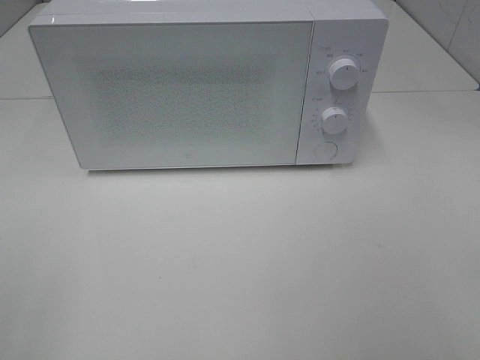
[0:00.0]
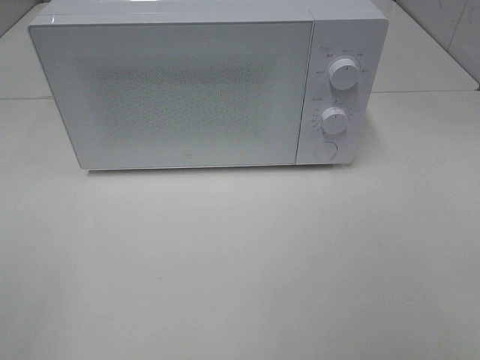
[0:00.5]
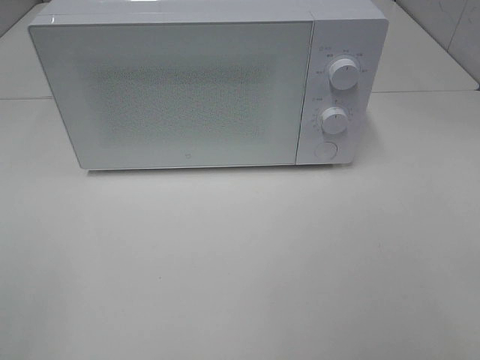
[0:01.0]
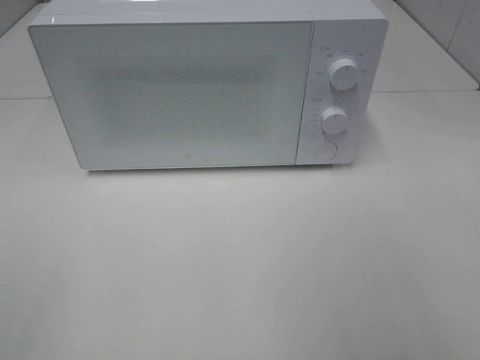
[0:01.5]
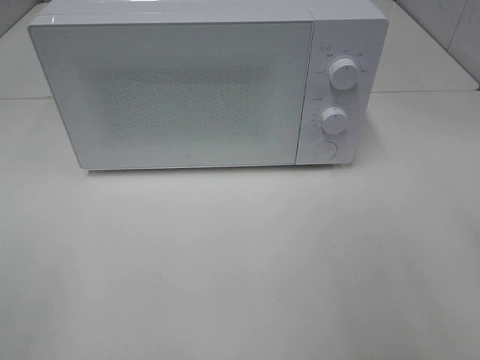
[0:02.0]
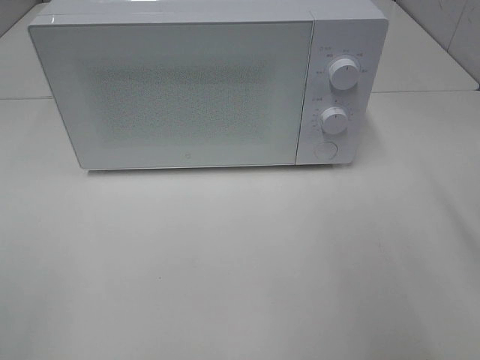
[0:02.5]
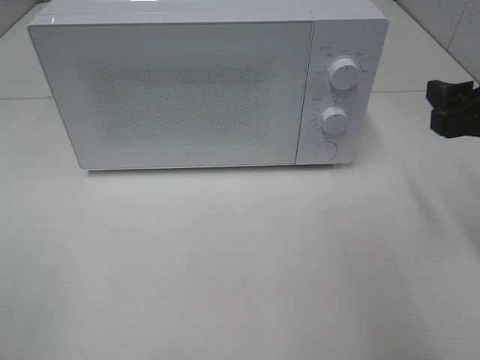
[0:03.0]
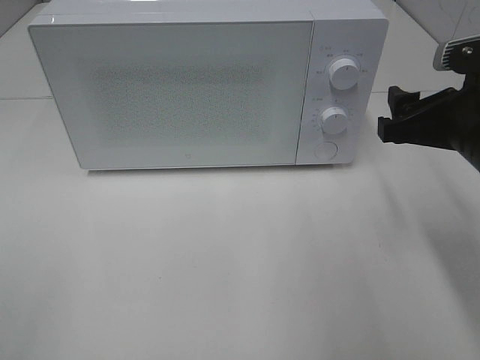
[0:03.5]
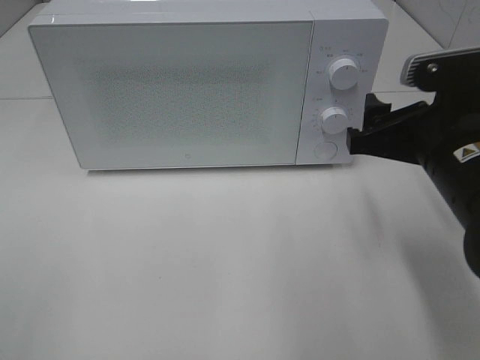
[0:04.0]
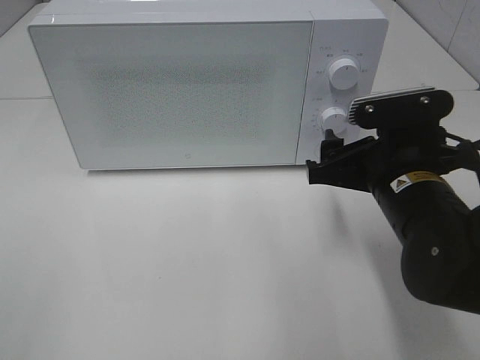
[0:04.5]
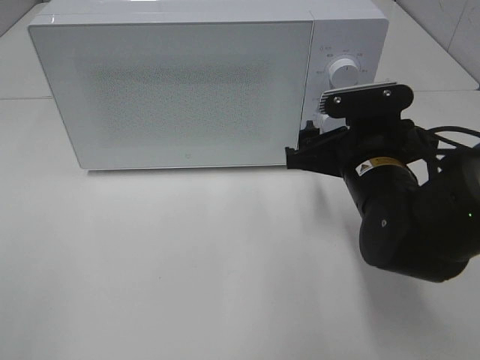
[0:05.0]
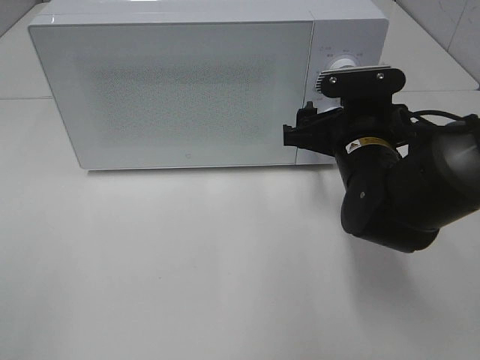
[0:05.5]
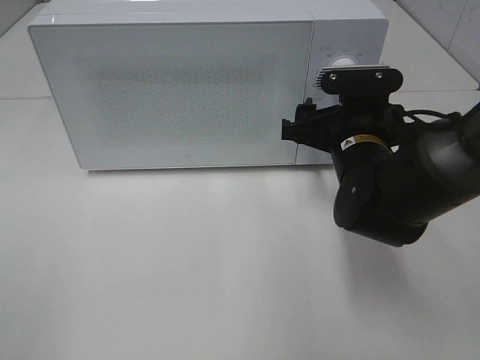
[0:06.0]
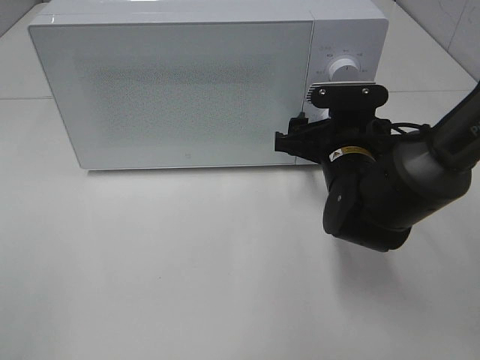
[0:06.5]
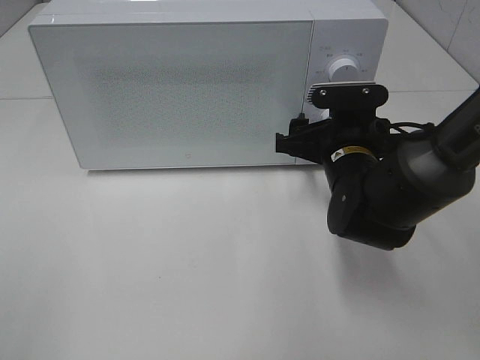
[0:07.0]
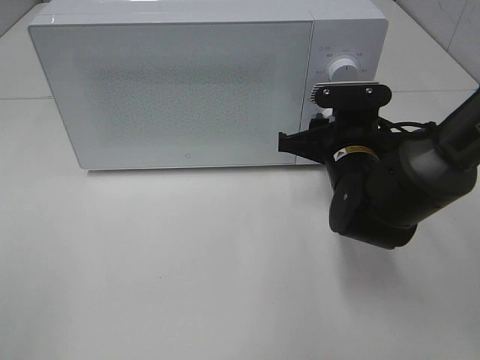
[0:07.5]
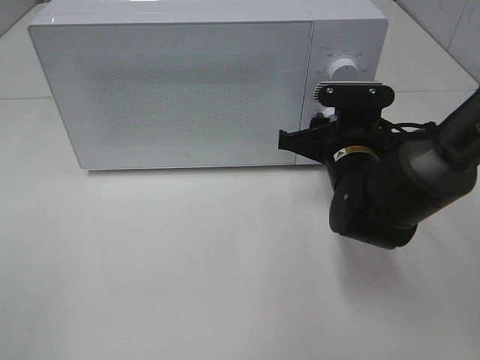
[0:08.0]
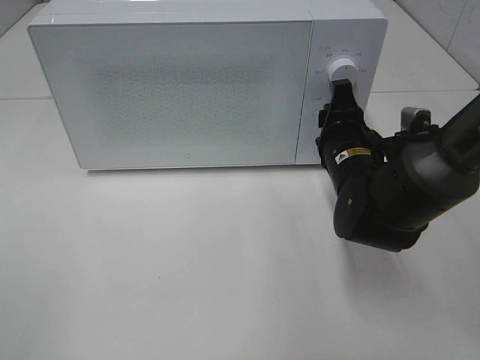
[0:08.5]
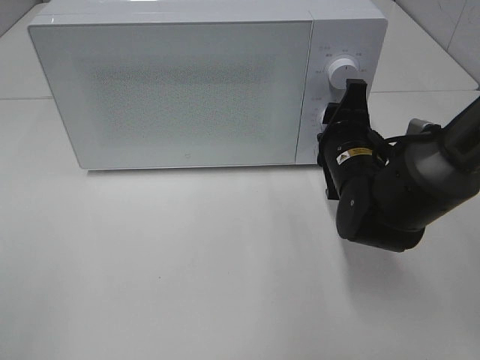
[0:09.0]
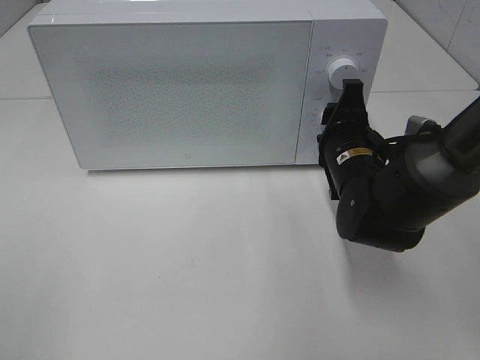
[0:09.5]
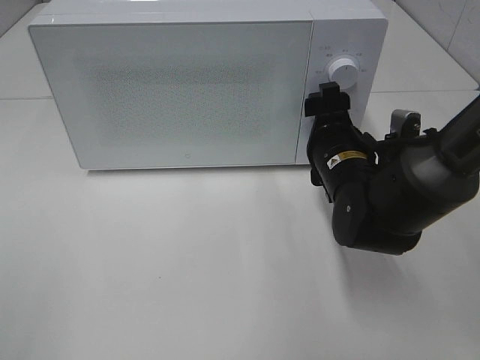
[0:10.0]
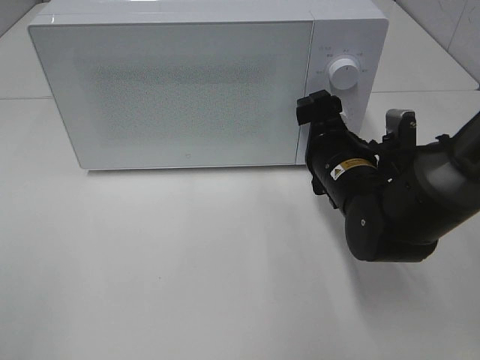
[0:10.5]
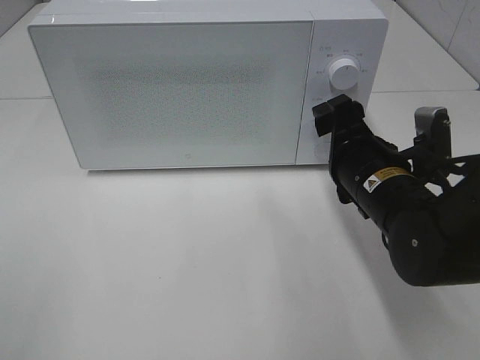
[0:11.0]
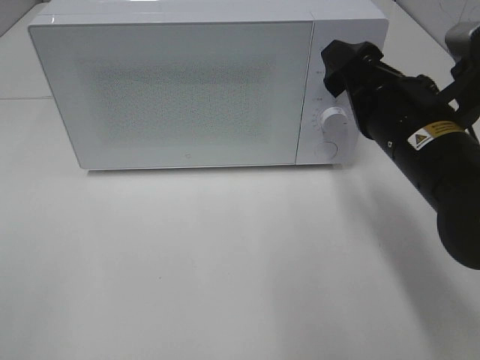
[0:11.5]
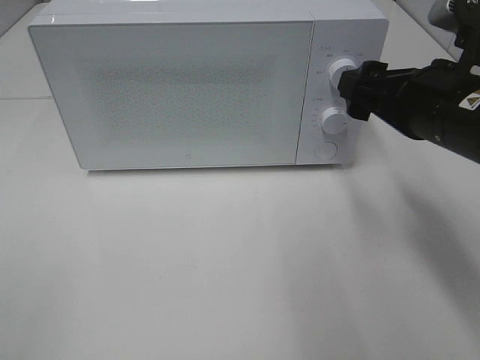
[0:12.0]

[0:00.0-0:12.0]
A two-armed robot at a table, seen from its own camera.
Task of the whole recording: Heat the burger.
Step, 0:00.0 to 0:09.5: Right hand: twist timer button.
0:02.0 to 0:04.0: The right gripper shifts roughly 15 cm forward, to the left and downward.
0:04.0 to 0:06.0: The right gripper shifts approximately 10 cm forward, downward and to the left.
0:06.0 to 0:08.0: The right gripper closes up.
0:08.0 to 0:10.0: The right gripper opens.
0:10.0 to 0:12.0: The right gripper moves upward, to the right and backward, about 15 cm.

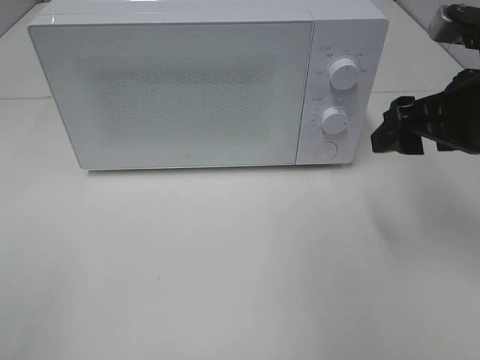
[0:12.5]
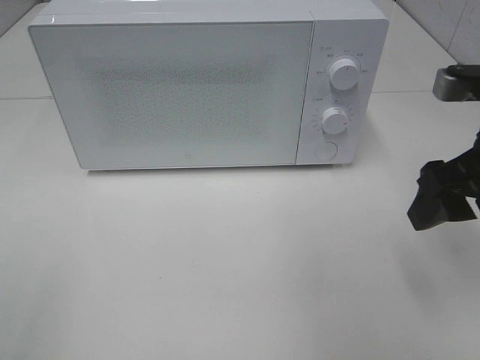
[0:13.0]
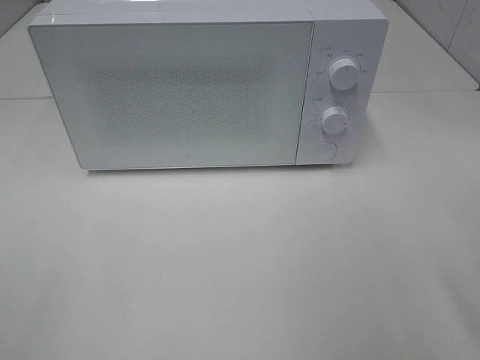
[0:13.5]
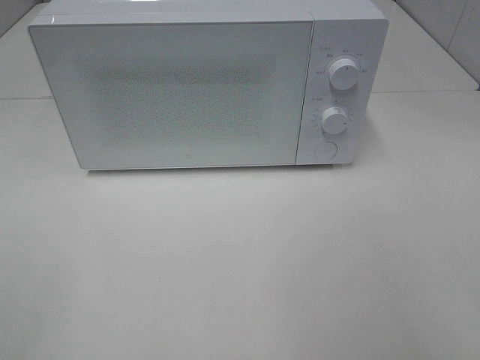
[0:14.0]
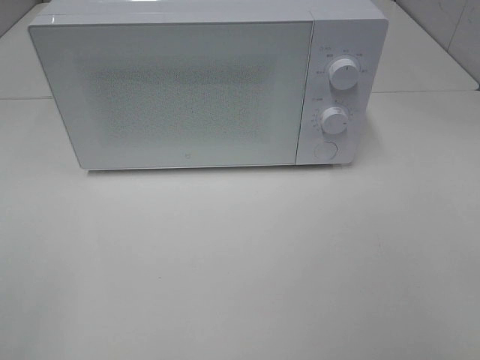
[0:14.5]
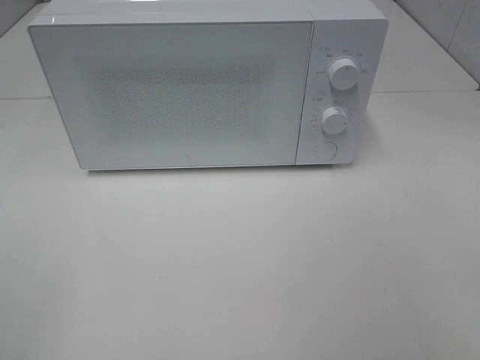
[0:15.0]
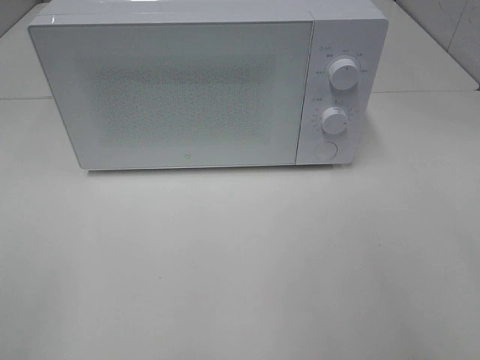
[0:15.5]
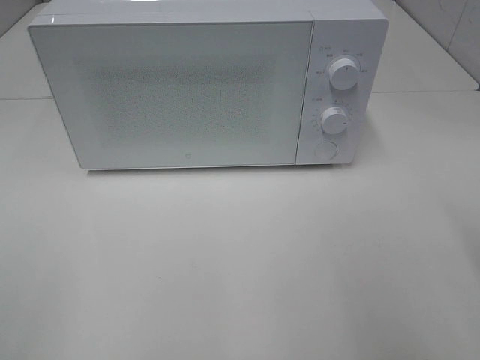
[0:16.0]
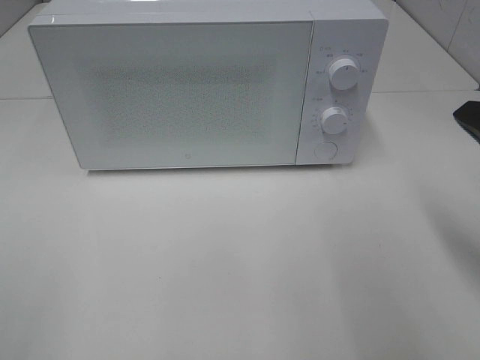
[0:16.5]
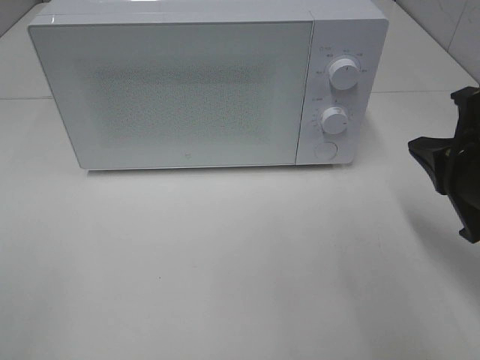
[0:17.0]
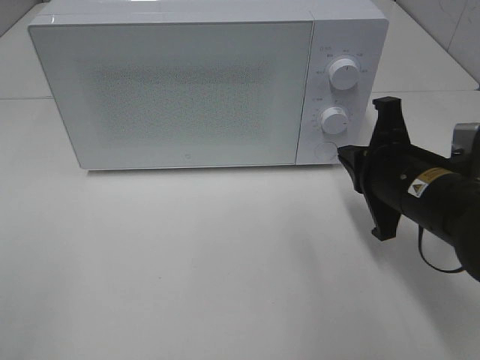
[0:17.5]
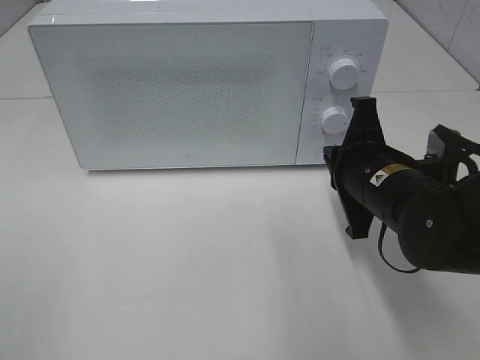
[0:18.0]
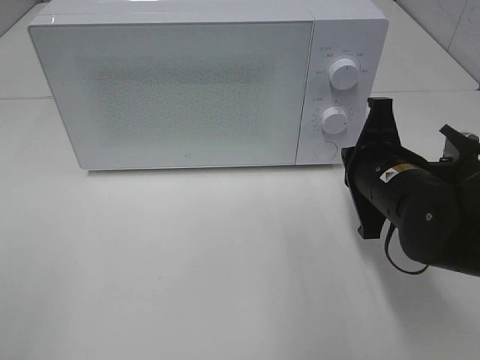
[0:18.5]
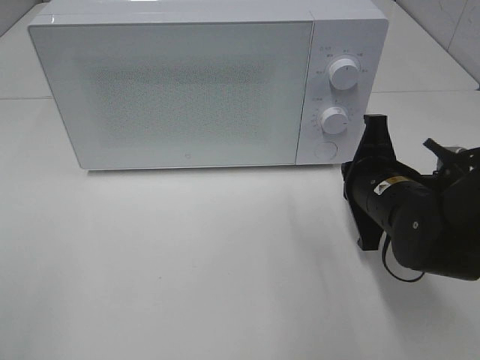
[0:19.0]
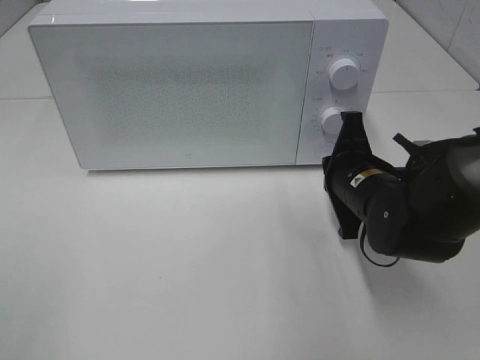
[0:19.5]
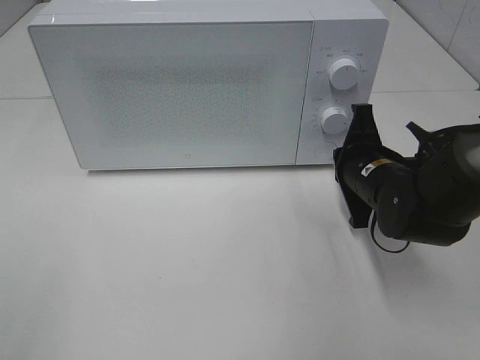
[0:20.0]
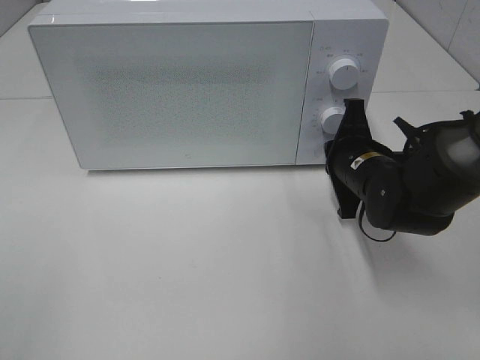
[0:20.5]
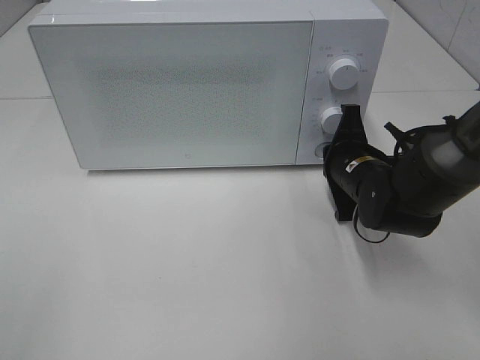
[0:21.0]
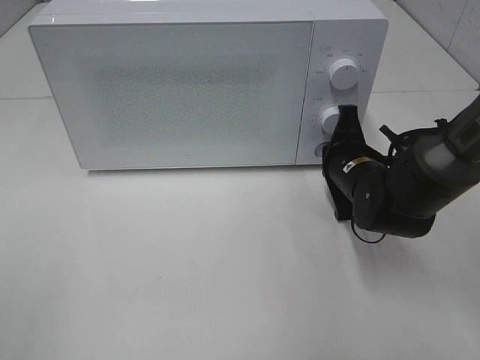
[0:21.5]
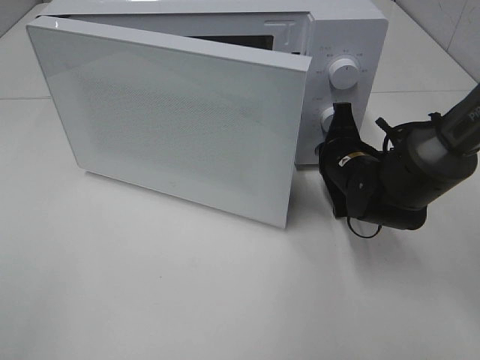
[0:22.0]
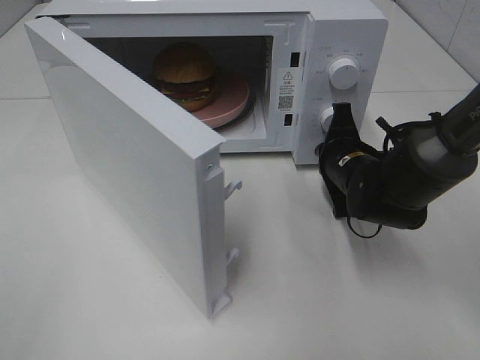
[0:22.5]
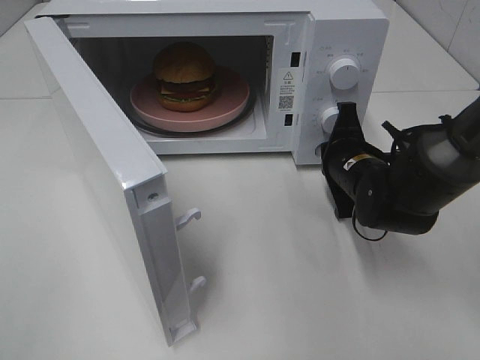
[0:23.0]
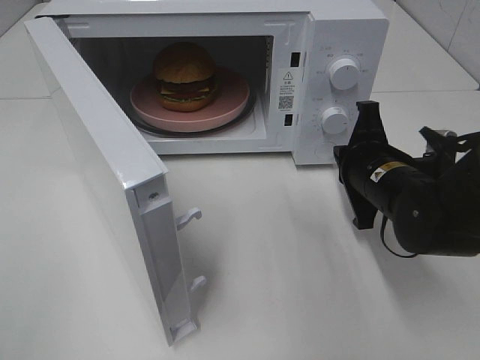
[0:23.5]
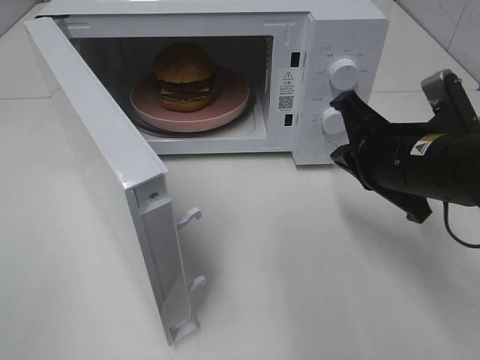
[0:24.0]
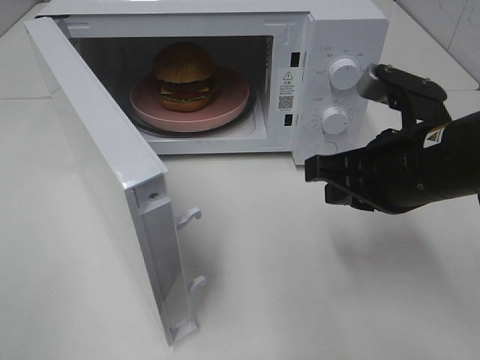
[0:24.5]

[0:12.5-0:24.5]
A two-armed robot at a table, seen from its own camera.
Task of the whole recording: Heat the burger.
Step, 0:12.5 to 0:23.0: Right hand: press the switch.
0:12.5 to 0:14.5: The right gripper goes about 25 cm backward.
0:14.5 to 0:16.5: The right gripper travels forward by approximately 20 cm, and closes up.
0:16.5 to 0:18.5: The right gripper moves downward, to the left and forward, approximately 15 cm.
0:18.5 to 0:20.5: The right gripper travels forward by about 5 cm.
0:22.5 to 0:24.5: The right gripper moves backward and upward, some 20 cm.

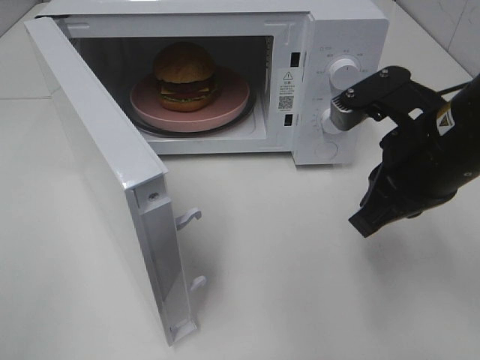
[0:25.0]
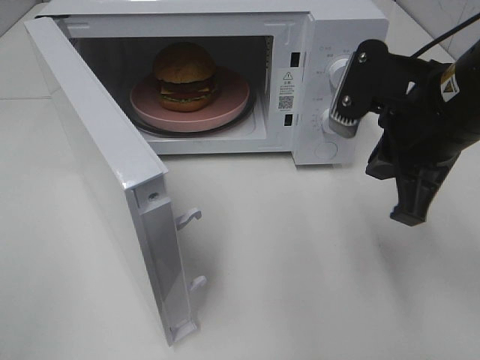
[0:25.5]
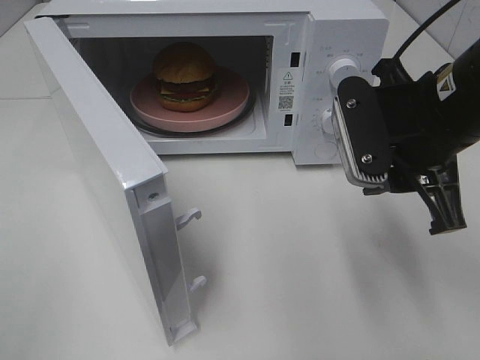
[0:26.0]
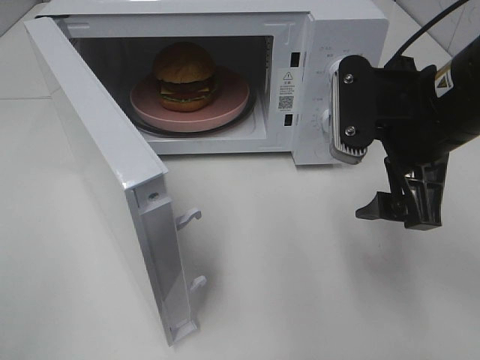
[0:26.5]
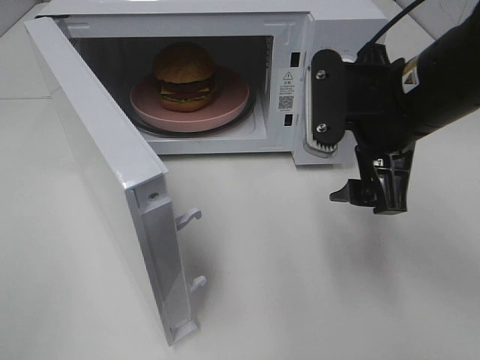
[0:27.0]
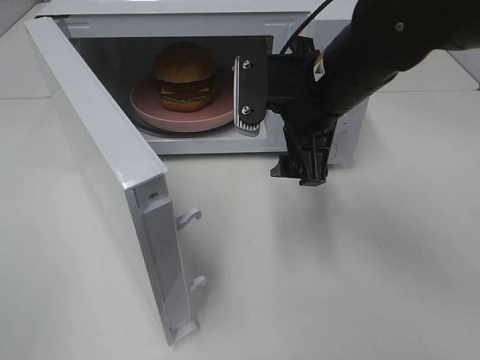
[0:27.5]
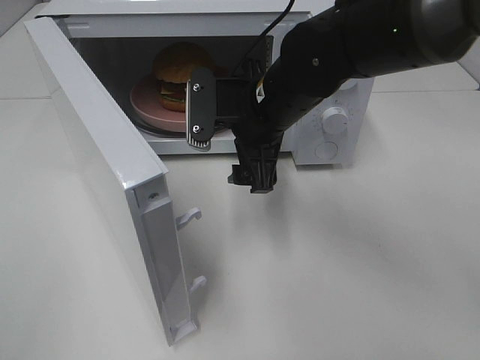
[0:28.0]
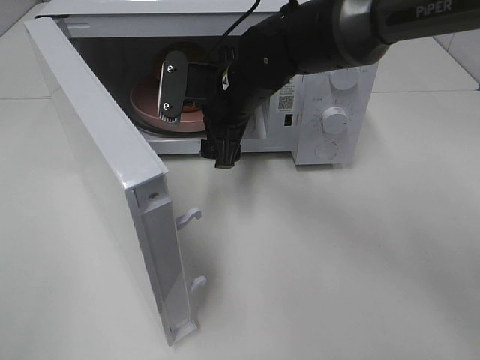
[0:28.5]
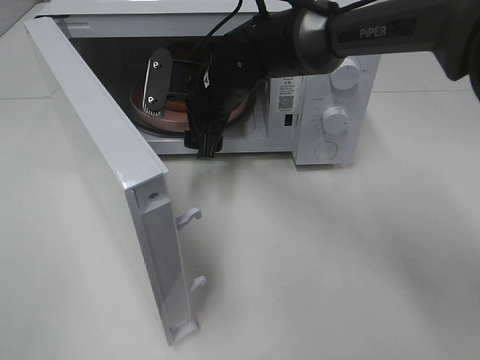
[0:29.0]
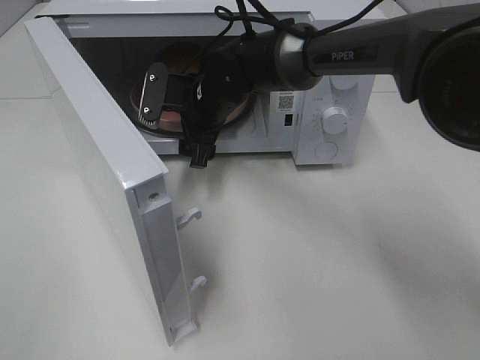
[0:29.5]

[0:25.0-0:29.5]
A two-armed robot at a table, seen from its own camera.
Task of the whole recording: Heat the burger.
0:25.0 to 0:27.0: The right gripper opens its fingers.
0:27.0 to 0:29.5: The right gripper heads to the left, forward and downward, covering approximately 25 cm.
